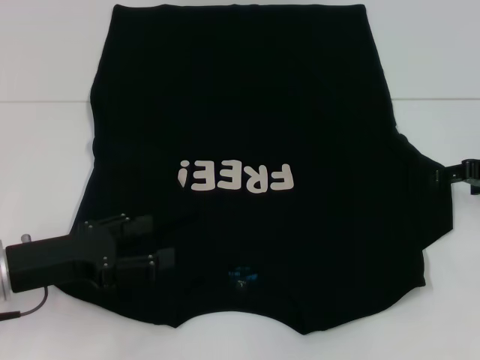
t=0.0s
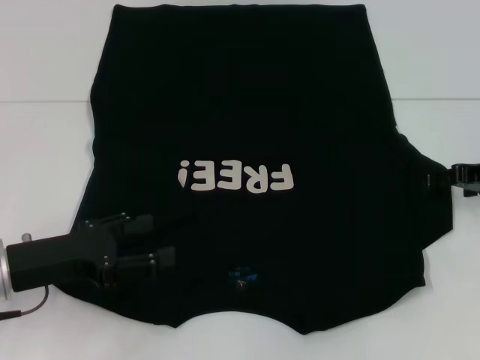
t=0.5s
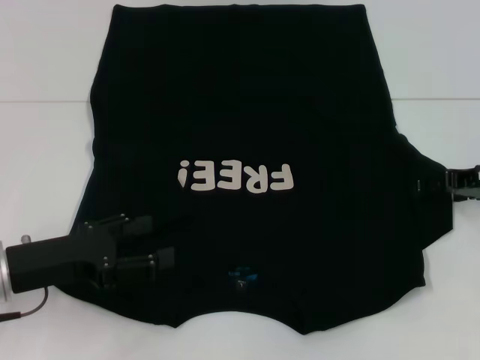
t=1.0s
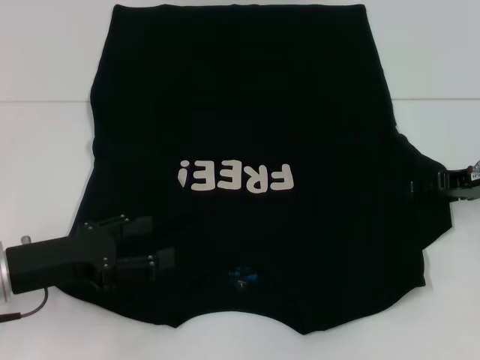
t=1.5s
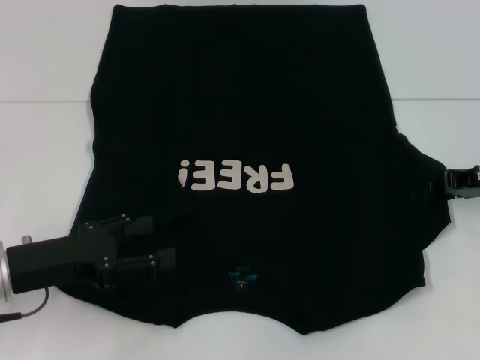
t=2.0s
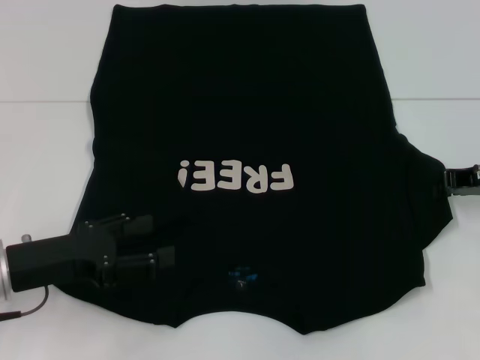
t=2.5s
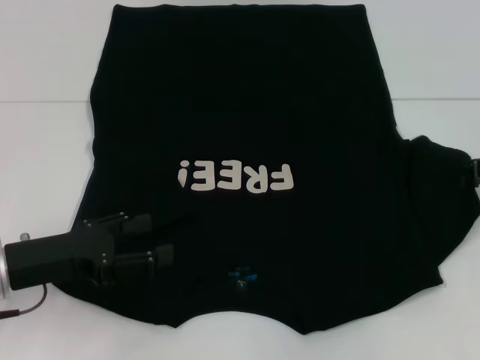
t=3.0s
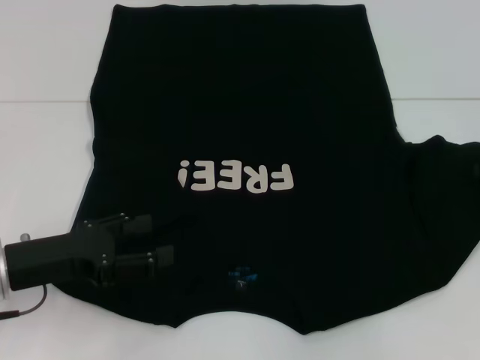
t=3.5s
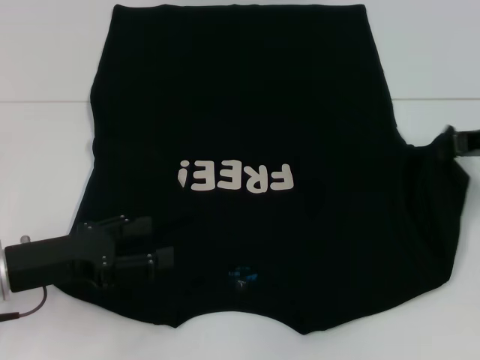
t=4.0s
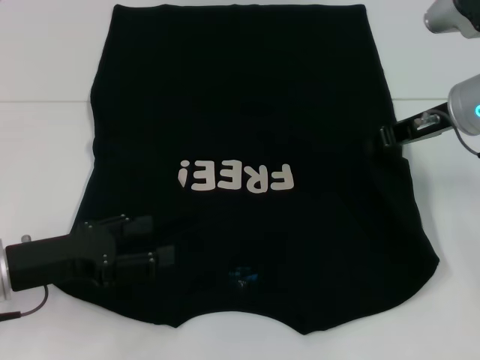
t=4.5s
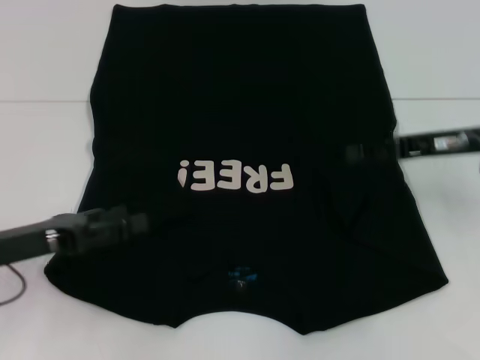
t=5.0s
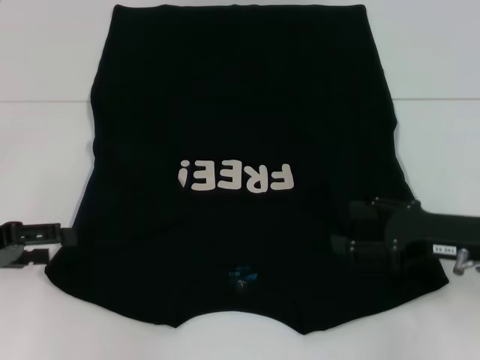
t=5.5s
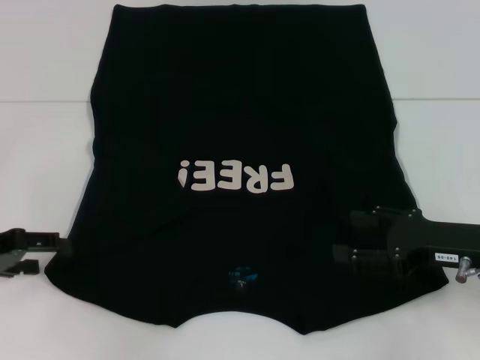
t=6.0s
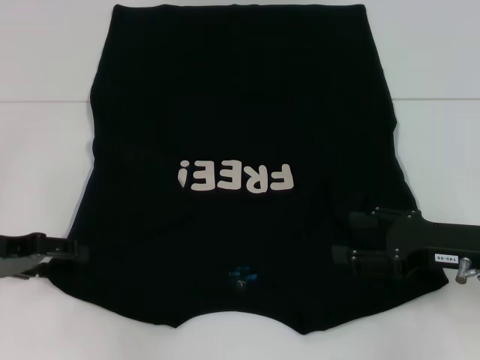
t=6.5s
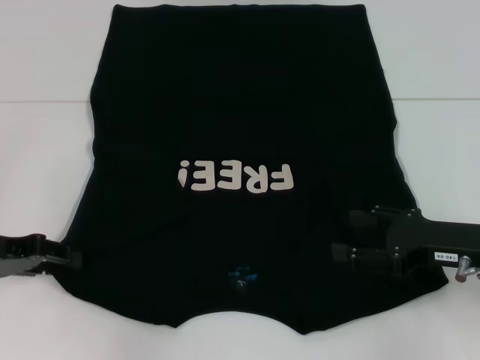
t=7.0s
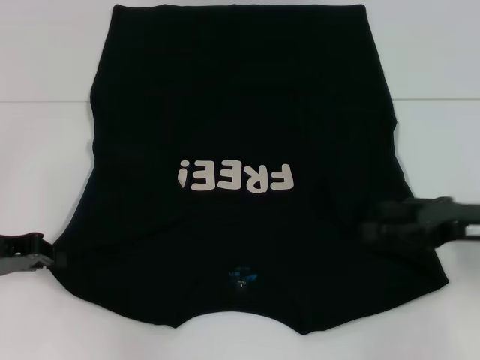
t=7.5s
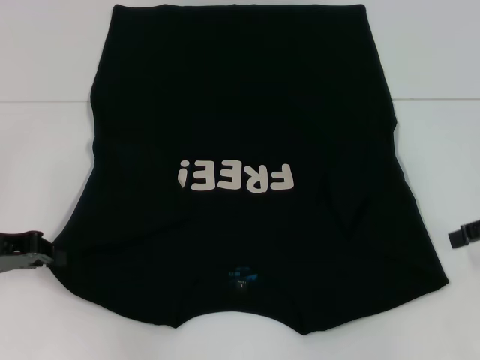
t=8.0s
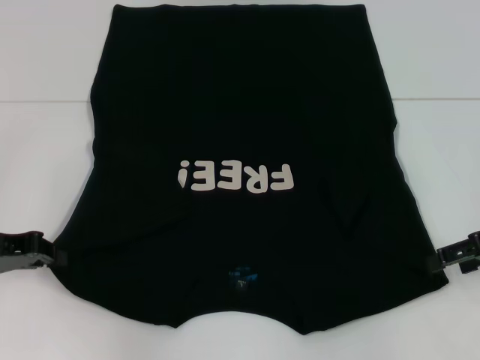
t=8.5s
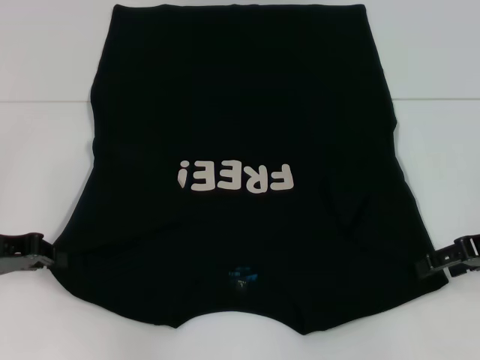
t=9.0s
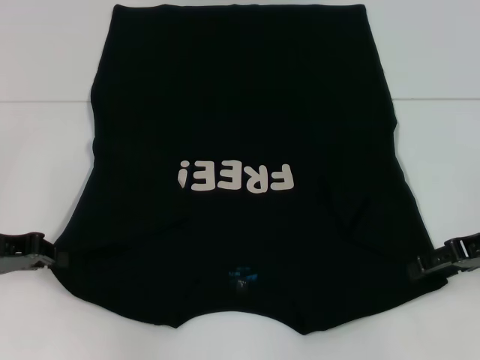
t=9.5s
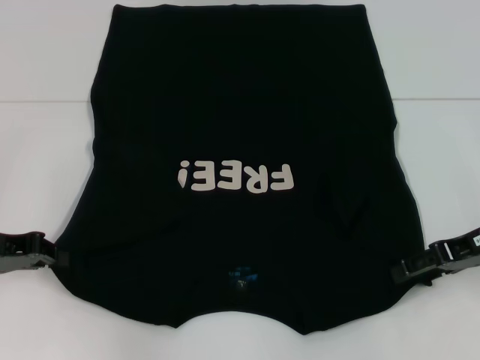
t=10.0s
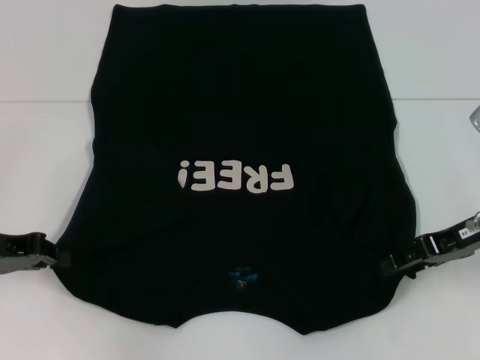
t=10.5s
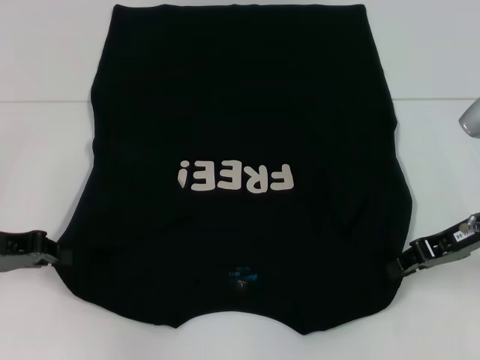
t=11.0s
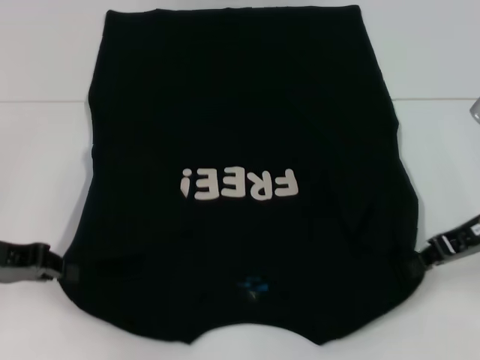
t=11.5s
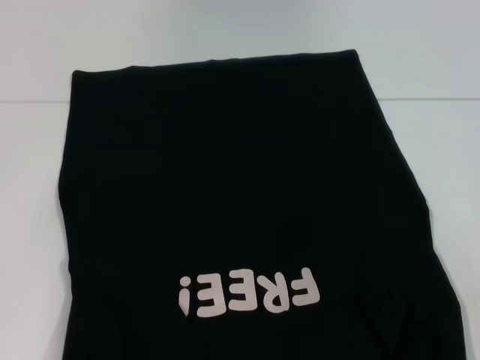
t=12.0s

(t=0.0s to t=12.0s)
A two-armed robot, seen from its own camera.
Step, t=0.0s - t=4.5s: Fold the bottom right sleeve with your right hand.
Step, t=5.0s - t=7.5s: Grab the bottom left corner with your left hand.
Step, t=8.0s - t=10.5s: Grab the bottom right corner with your right hand.
t=0.0s - t=2.0s: The right gripper closes up.
t=2.0s - t=4.0s: The right gripper closes its fingers.
t=4.0s - t=6.0s: The left gripper goes about 10 cm to the left; the right gripper is displaced backward and downward by some 15 cm, and opens up.
t=6.0s - t=8.0s: The right gripper heads to the right and upward, covering approximately 10 cm. Meanwhile the left gripper closes up.
t=8.0s - t=10.0s: The right gripper moves to the left, approximately 5 cm.
t=10.0s - t=12.0s: Both grippers travel together backward, some 5 cm. The right gripper closes.

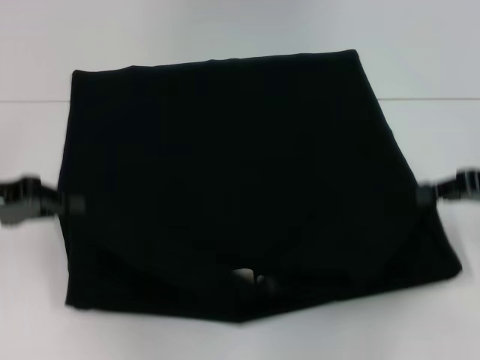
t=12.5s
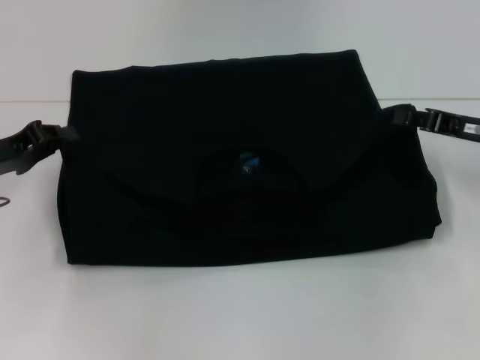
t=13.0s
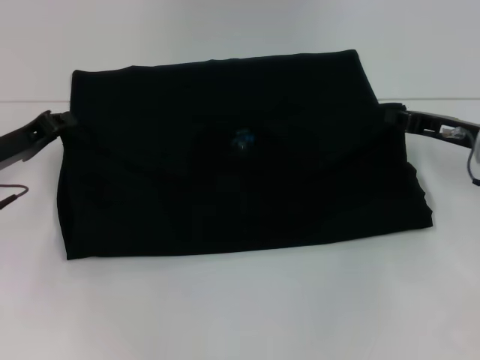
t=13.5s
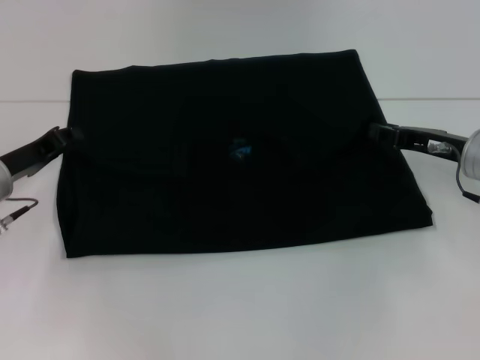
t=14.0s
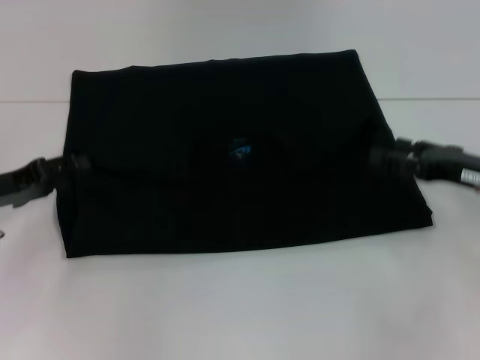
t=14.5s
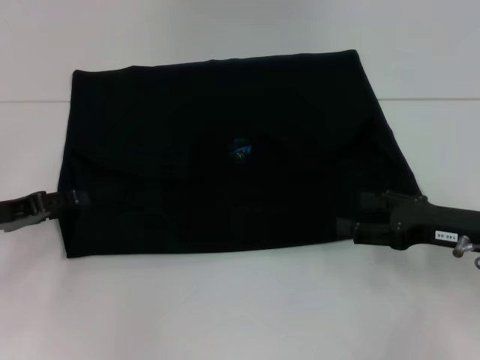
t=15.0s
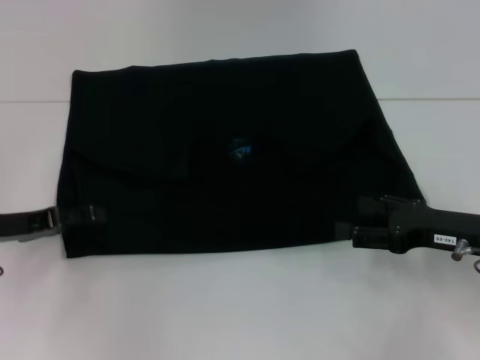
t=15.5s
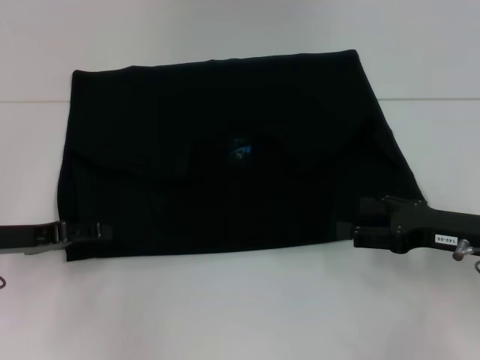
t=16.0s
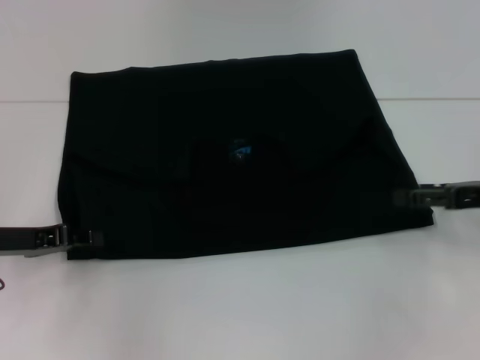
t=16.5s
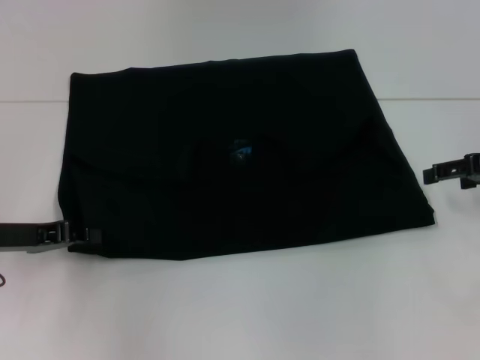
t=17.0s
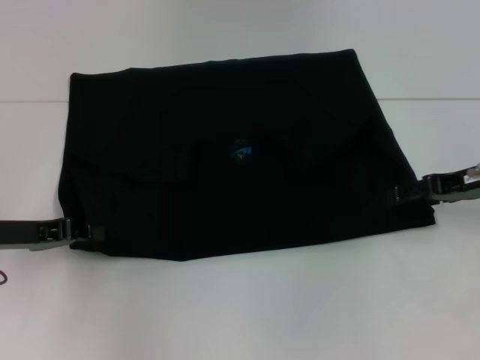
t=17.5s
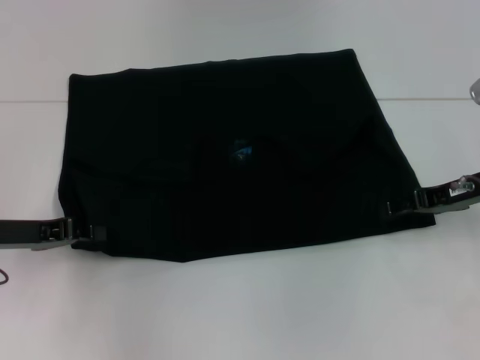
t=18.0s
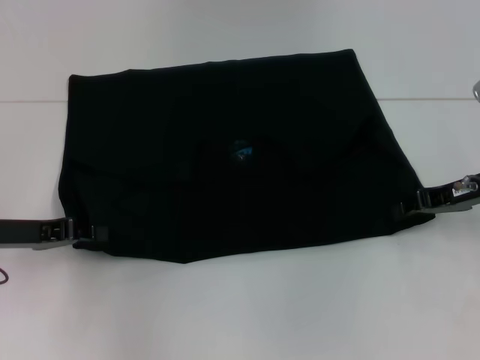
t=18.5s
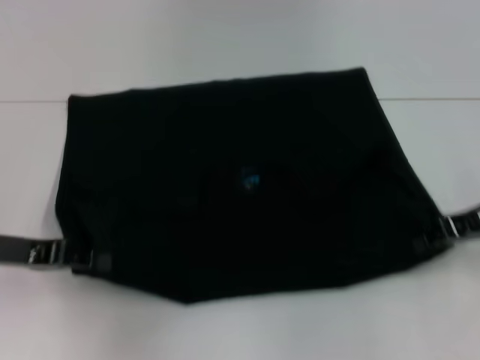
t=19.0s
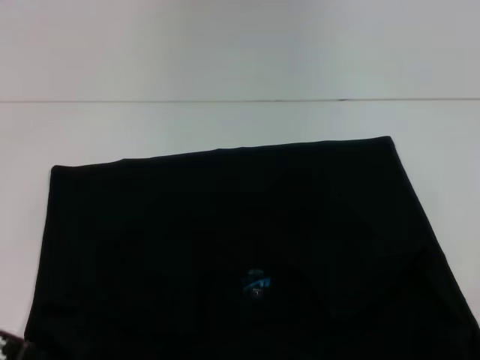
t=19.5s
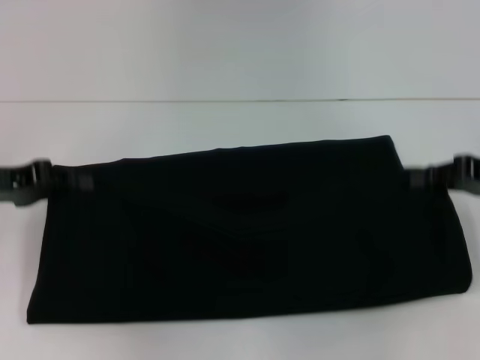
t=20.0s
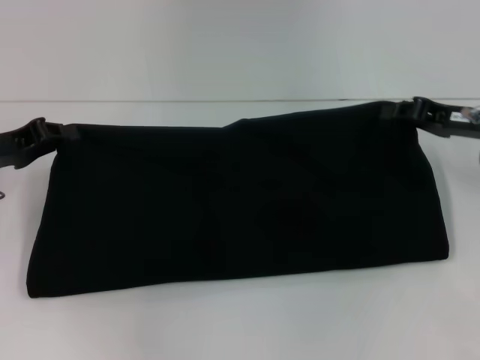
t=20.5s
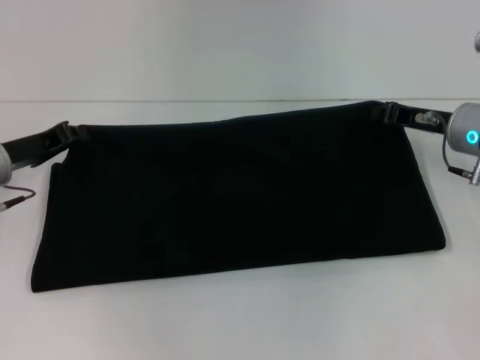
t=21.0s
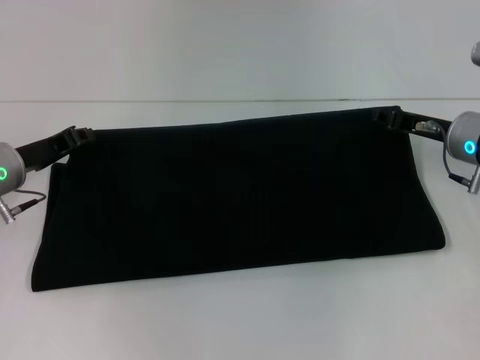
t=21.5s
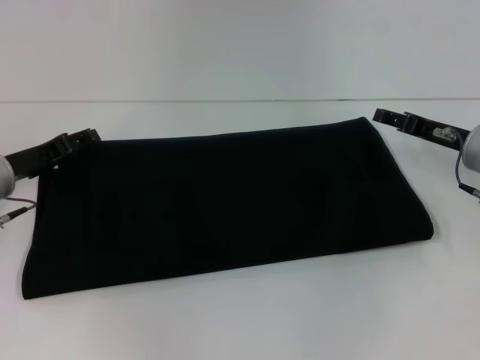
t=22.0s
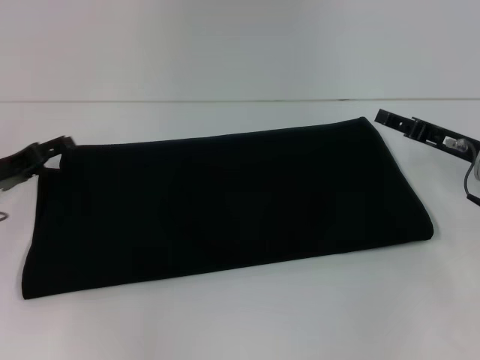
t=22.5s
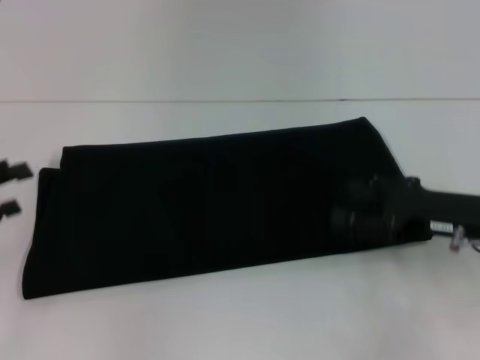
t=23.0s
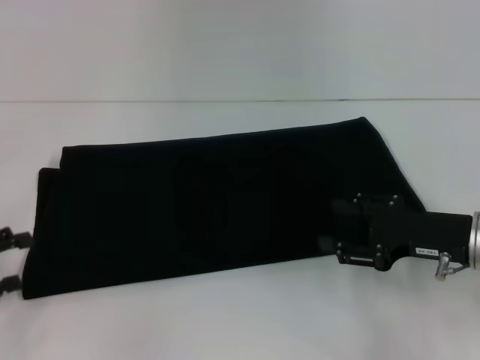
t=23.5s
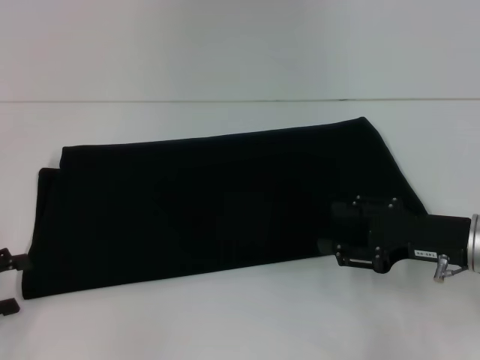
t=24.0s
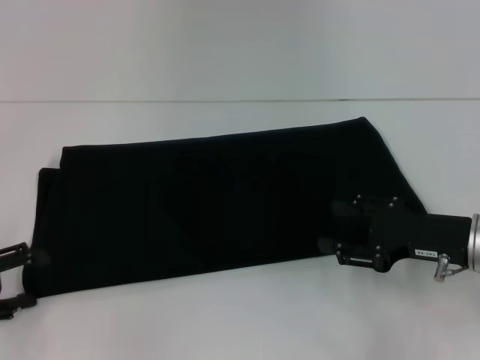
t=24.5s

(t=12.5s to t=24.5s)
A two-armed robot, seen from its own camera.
Step, t=14.5s - t=19.0s: Pull the clothes with your left hand.
Step, t=14.5s - t=19.0s: Pull the clothes with your right hand.
Step, t=19.5s - t=22.0s: Fold the clothes with your right hand.
t=12.5s - t=14.5s: The grippers both shift downward by approximately 5 cm. The right gripper opens. Meanwhile the left gripper opens up.
t=14.5s - t=16.5s: The right gripper opens up.
t=16.5s - t=18.5s: The left gripper closes its fingers. The right gripper shifts by roughly 5 cm, and closes up.
t=18.5s - t=20.5s: The left gripper ends up roughly 5 cm from where it was; the right gripper travels backward and back again, about 10 cm each way, and closes.
t=20.5s - t=22.5s: The left gripper opens its fingers, while the right gripper shifts by roughly 5 cm, and opens.
t=22.5s - t=24.5s: The right gripper goes approximately 5 cm backward, while the left gripper moves backward and to the left, approximately 15 cm.

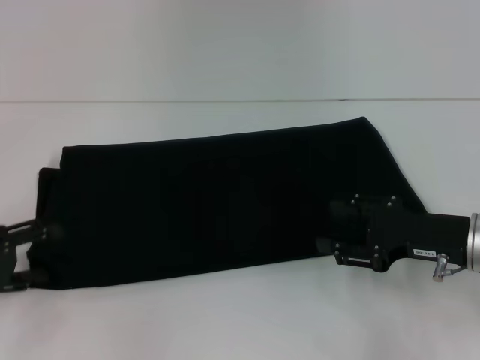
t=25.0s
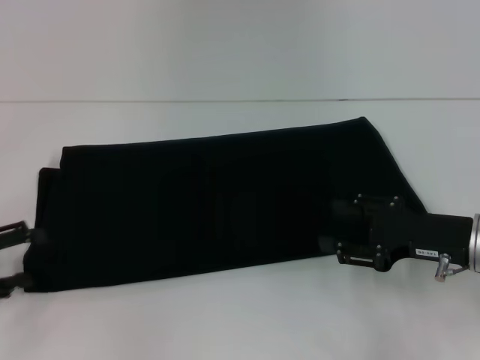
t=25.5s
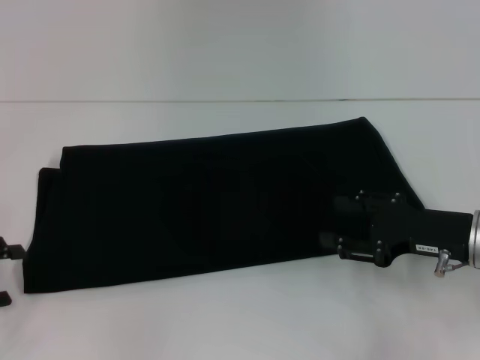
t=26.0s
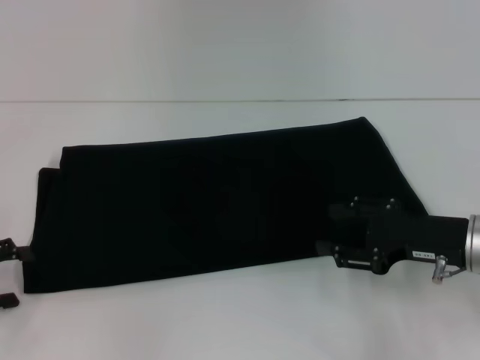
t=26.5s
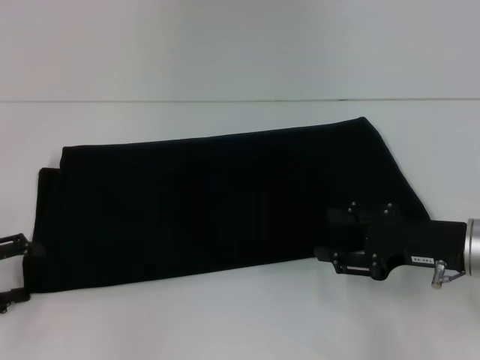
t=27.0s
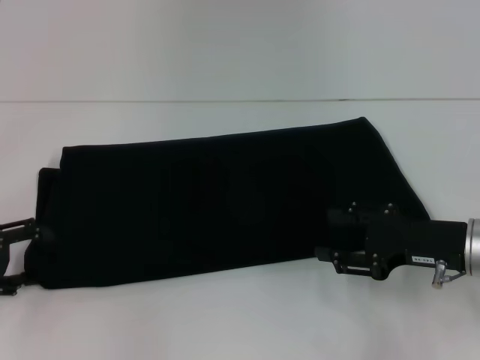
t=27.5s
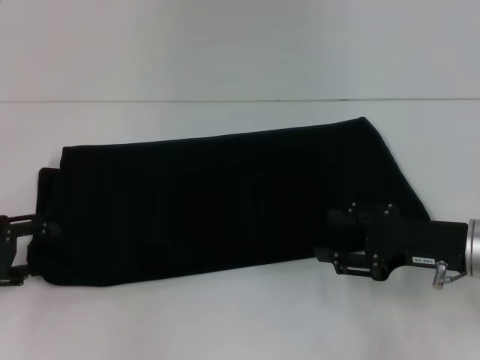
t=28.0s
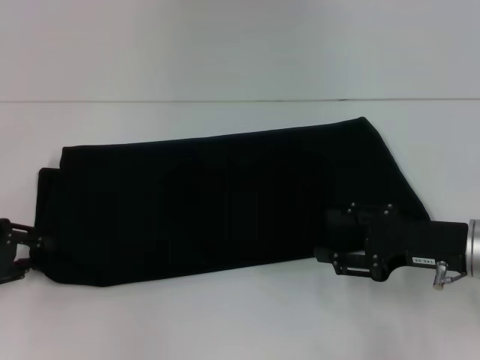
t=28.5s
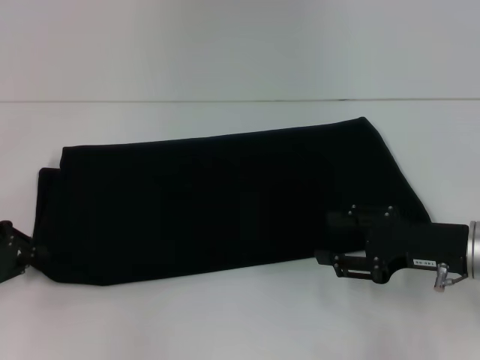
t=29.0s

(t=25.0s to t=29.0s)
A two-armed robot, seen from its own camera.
t=25.0s - t=27.0s: The grippers make only small movements.
t=27.0s - t=29.0s: The left gripper closes.
